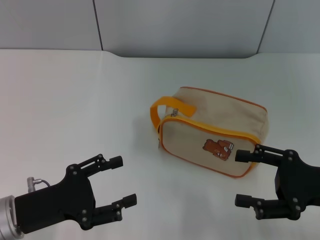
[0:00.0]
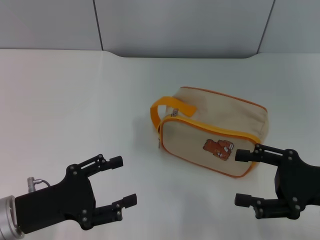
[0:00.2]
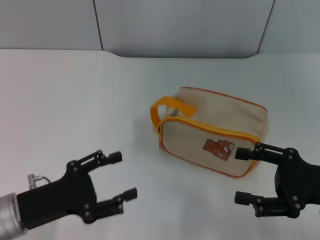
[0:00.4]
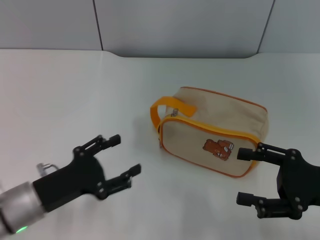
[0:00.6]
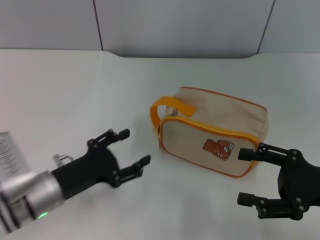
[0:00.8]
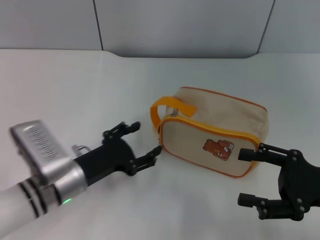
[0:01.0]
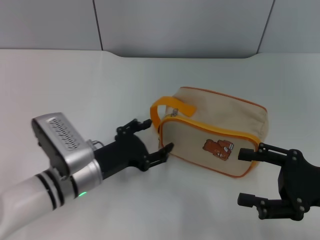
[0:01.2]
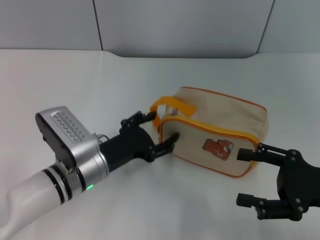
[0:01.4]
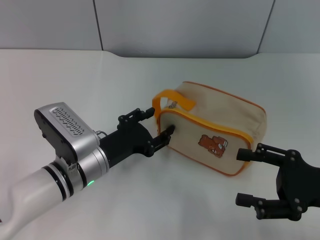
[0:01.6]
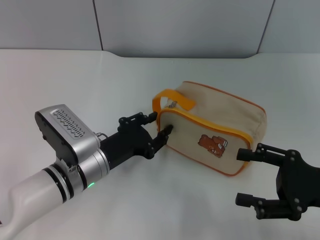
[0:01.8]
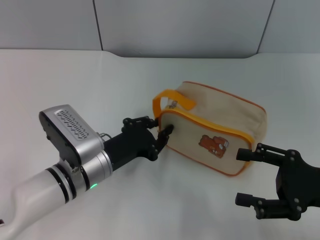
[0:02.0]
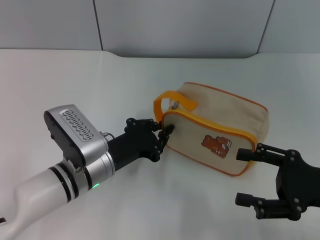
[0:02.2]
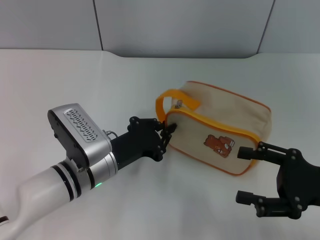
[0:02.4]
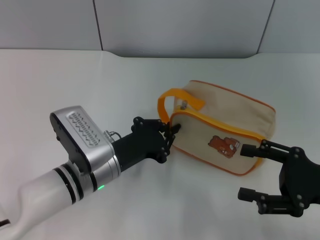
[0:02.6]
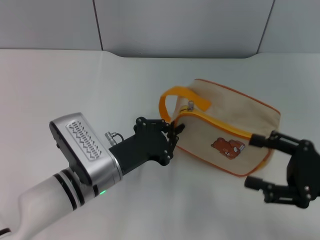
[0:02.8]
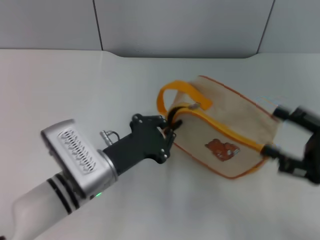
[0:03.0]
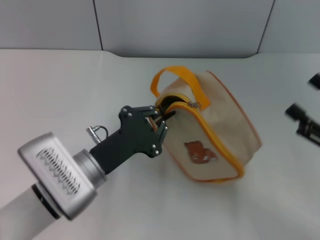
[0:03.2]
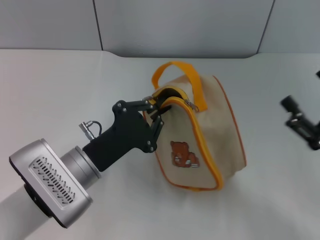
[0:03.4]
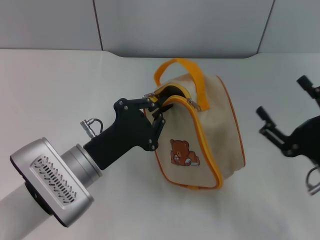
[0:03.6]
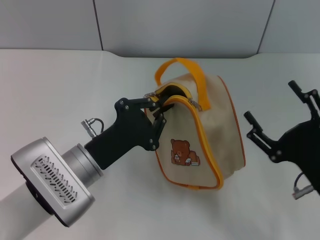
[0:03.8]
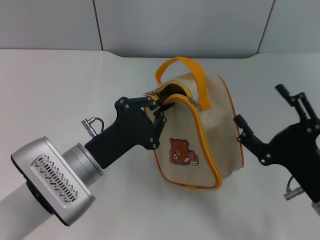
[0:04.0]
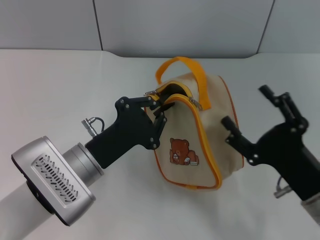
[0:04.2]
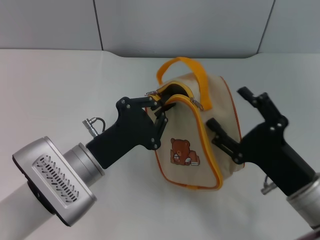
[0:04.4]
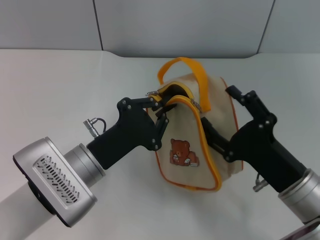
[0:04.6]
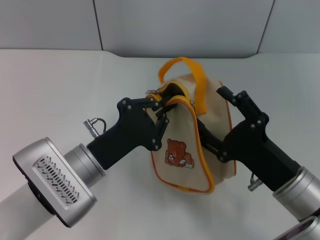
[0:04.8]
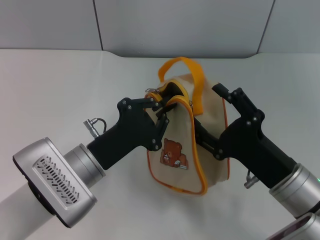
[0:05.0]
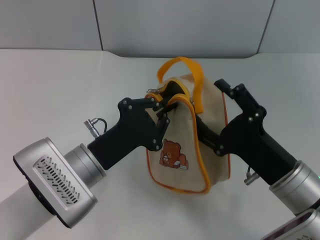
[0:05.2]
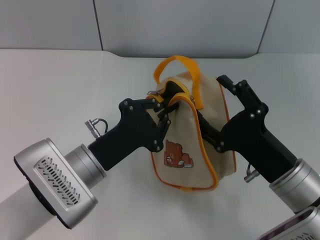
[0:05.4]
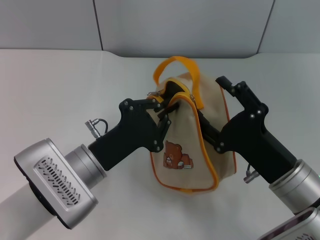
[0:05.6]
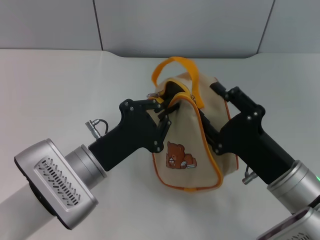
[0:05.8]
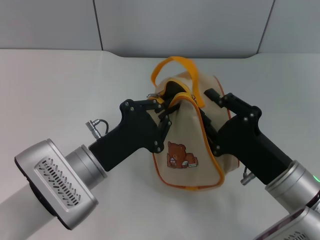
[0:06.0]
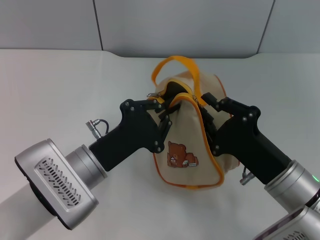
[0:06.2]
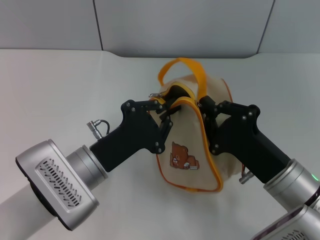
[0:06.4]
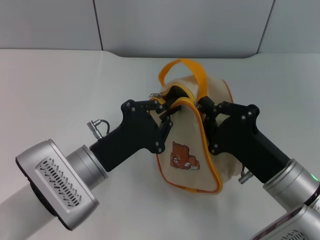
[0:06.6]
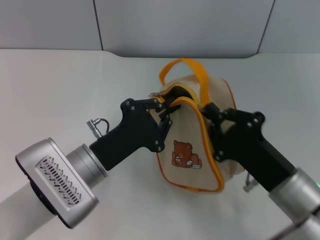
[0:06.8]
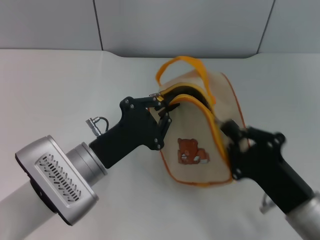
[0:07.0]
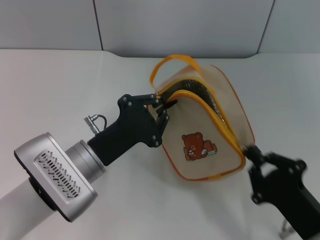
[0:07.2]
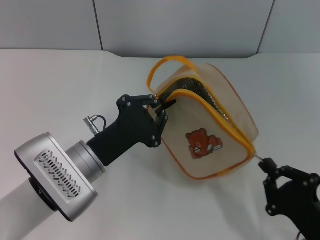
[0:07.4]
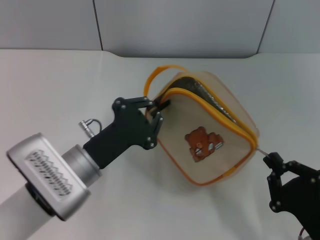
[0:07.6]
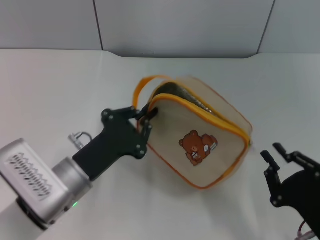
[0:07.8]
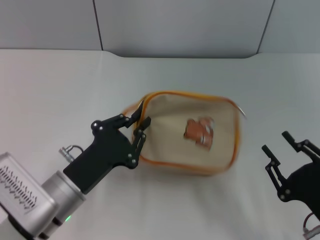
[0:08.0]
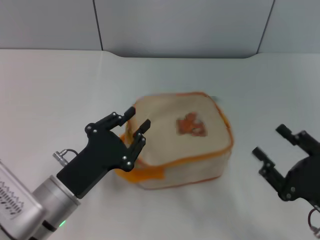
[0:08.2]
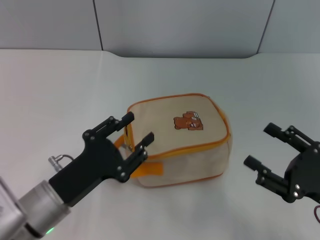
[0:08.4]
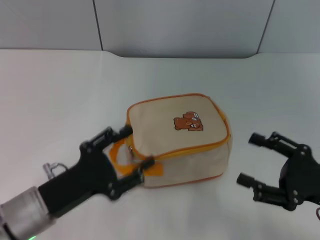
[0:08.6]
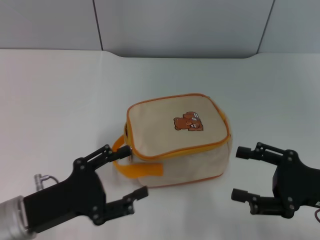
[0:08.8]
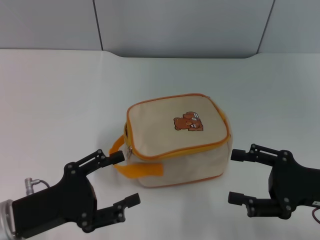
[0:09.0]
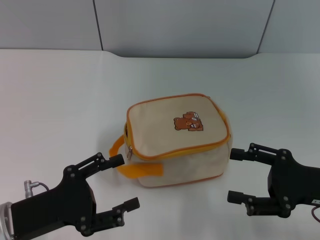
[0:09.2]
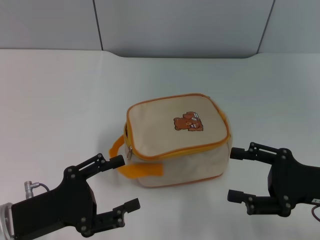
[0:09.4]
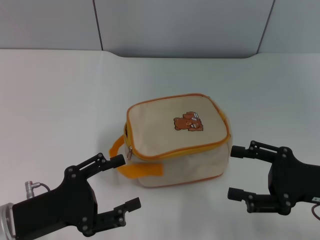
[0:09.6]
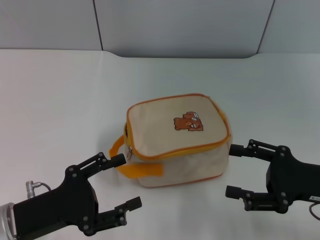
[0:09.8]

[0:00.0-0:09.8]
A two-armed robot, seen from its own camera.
Step, 0:00.0 to 0:03.4: Pick up the bag with left gripper.
Step, 0:03.6 to 0:07.8: Unzip the zipper of bag with right gripper.
Step, 0:08.0 to 0:08.6: Place the bag on the table with left gripper.
0:00.0 to 0:01.4: The left gripper moves to the right and forward, roughly 15 cm.
0:01.4 to 0:02.8: The left gripper closes.
0:02.8 to 0:04.2: The right gripper moves to the left, some 10 cm.
0:04.2 to 0:05.6: There are only small adjustments of the grippers.
0:05.6 to 0:07.0: The right gripper closes.
0:07.0 to 0:08.4: The right gripper shifts roughly 10 cm to the right, and opens up, while the left gripper is displaced backward by about 5 cm.
0:08.4 to 0:09.8: The right gripper changes place by roughly 5 cm. The left gripper goes about 5 cm to the left, and opens.

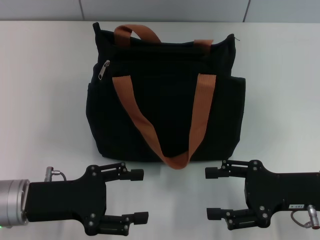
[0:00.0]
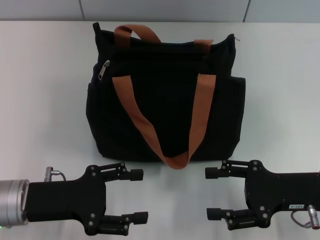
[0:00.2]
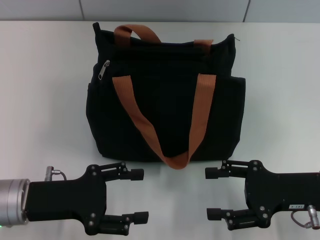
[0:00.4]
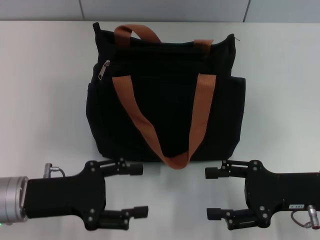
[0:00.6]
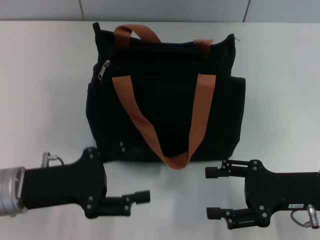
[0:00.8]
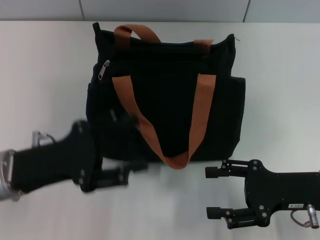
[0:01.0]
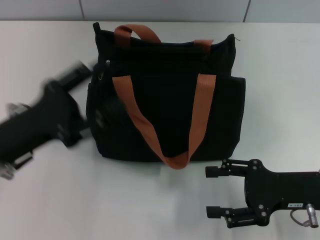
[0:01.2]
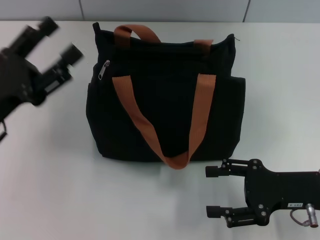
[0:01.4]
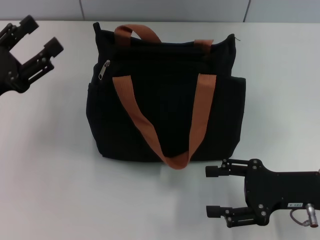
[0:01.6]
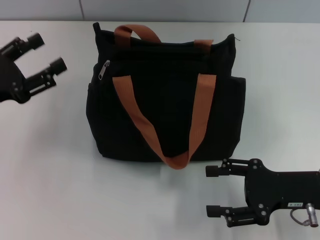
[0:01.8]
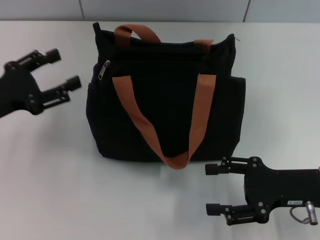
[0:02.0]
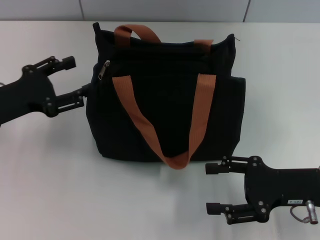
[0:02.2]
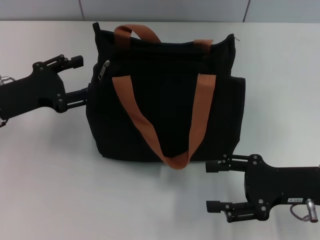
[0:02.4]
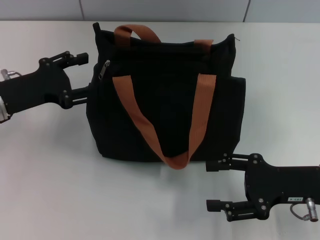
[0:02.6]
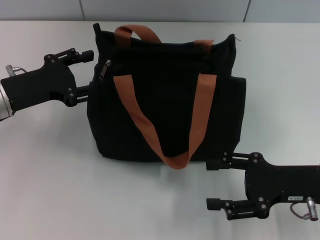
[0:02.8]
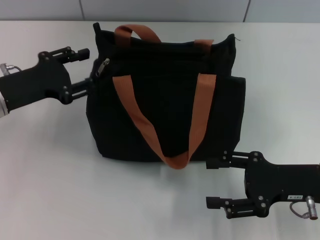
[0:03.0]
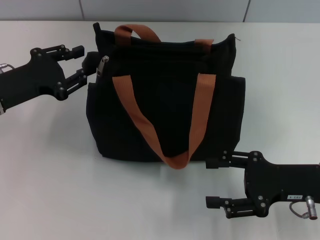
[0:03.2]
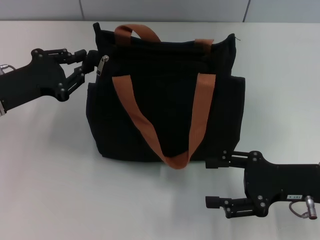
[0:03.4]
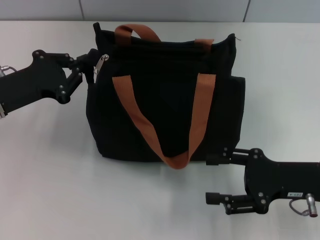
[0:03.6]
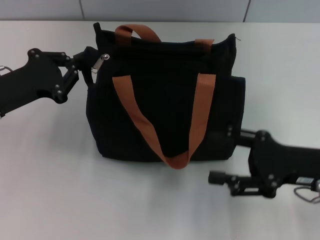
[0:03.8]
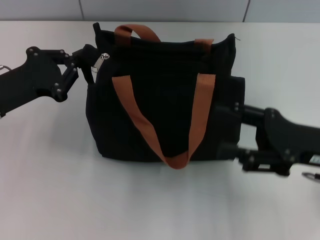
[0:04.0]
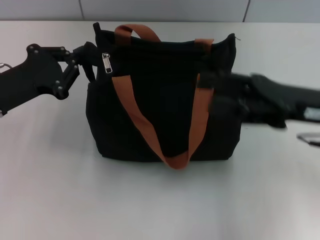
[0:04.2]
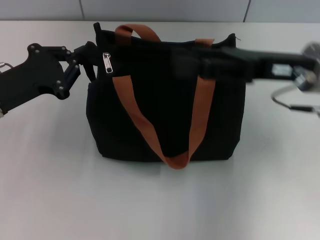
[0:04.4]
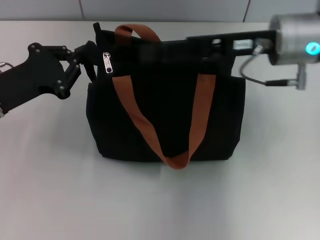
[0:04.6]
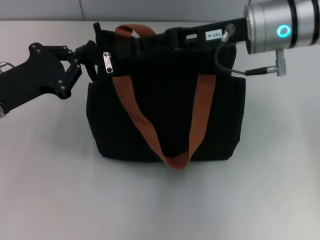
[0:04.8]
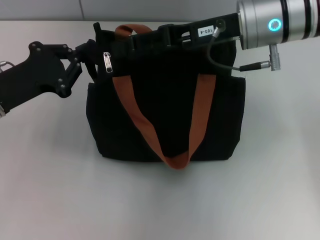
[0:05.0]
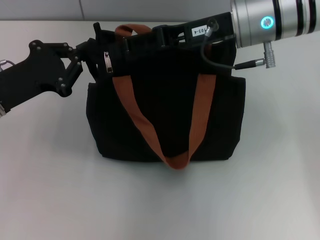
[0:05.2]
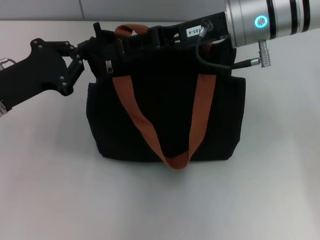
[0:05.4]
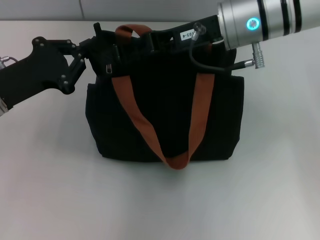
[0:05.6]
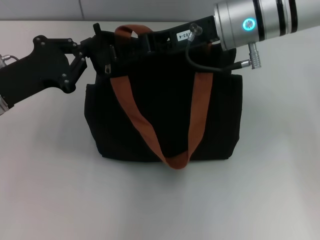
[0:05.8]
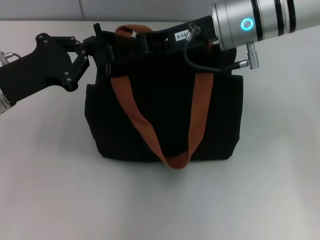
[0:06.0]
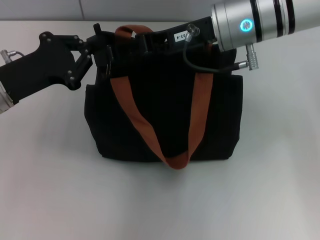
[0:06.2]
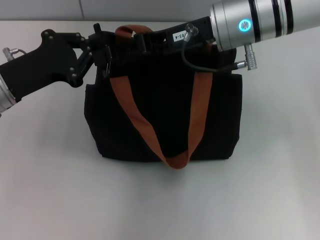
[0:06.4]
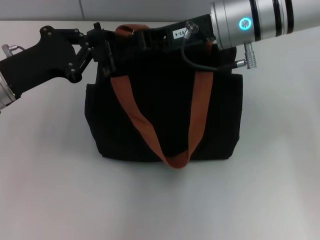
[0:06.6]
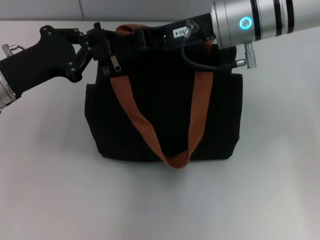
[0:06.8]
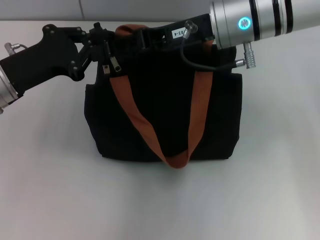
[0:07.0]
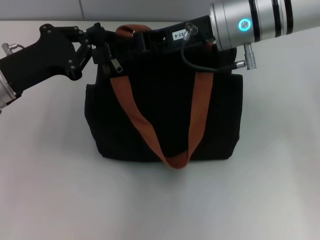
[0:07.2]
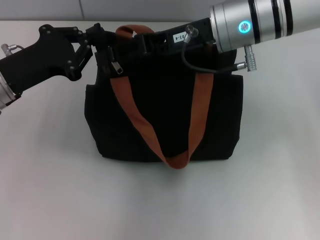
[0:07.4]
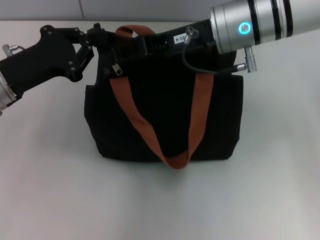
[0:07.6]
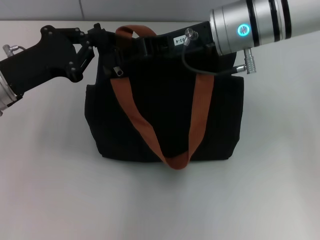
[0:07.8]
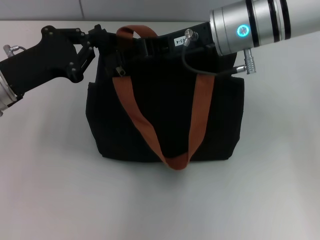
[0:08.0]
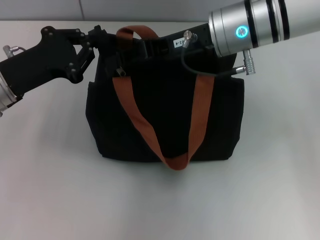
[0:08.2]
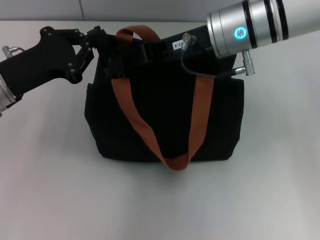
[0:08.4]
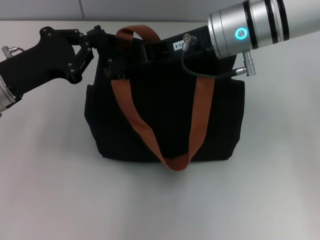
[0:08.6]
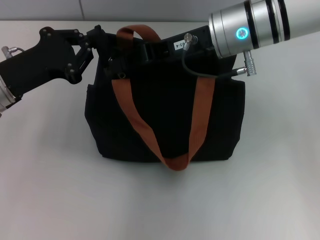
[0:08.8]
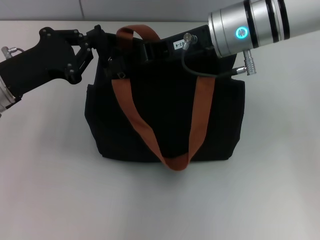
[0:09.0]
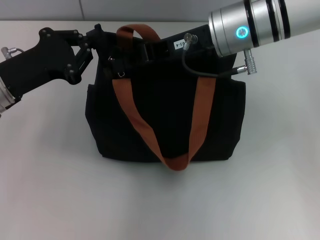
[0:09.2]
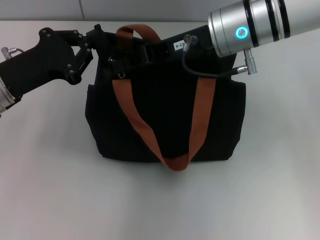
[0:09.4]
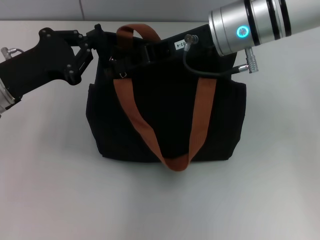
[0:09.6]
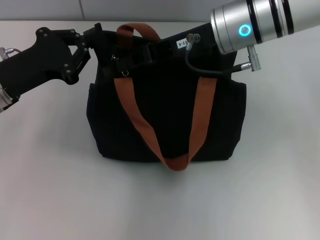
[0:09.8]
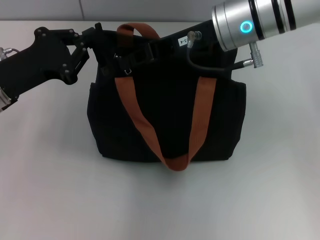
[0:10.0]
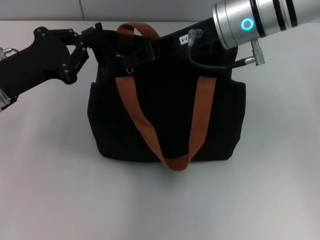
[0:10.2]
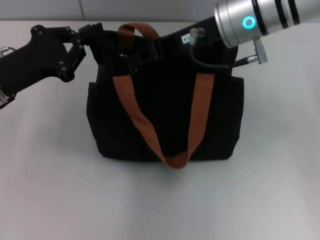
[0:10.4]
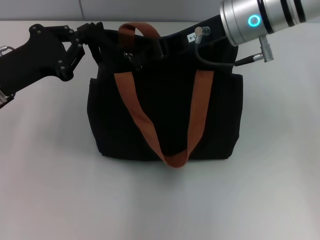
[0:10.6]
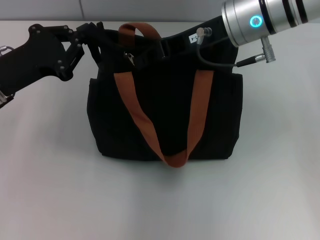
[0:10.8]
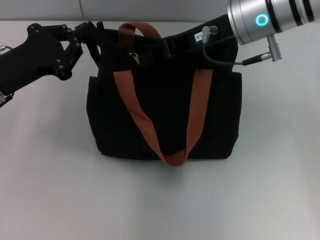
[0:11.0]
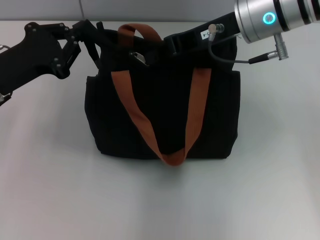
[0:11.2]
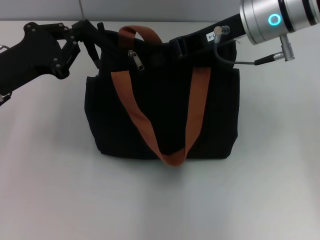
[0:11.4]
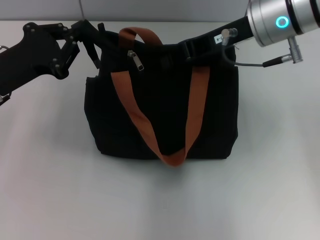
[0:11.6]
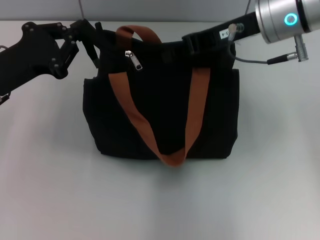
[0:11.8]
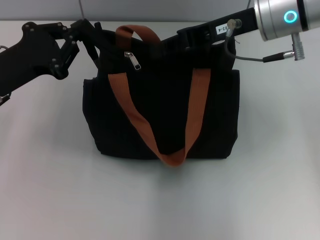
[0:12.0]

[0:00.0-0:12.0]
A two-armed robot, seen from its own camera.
0:00.0 to 0:01.6: The left gripper travels to the left and forward by roughly 10 cm.
0:01.6 to 0:03.0: The left gripper heads forward, covering some 5 cm.
0:03.0 to 0:04.4: The right gripper moves upward, forward and to the left, roughly 15 cm. The left gripper closes its fingers.
0:04.4 to 0:06.0: The right gripper goes some 10 cm to the left and forward.
0:06.0 to 0:07.6: Both grippers stay put.
0:07.6 to 0:09.0: The right gripper closes.
0:09.0 to 0:12.0: The grippers move only a little.
